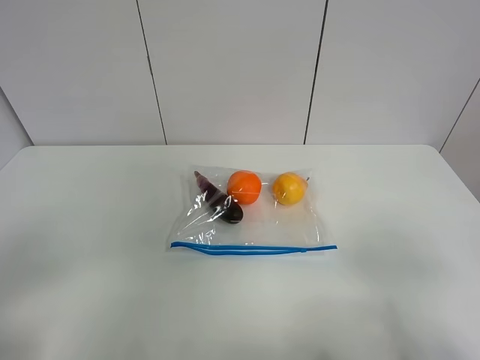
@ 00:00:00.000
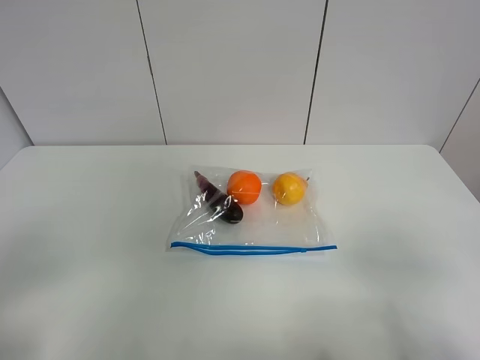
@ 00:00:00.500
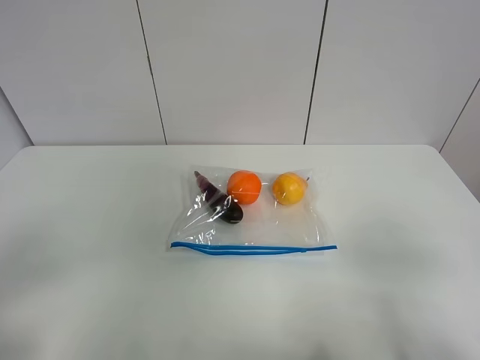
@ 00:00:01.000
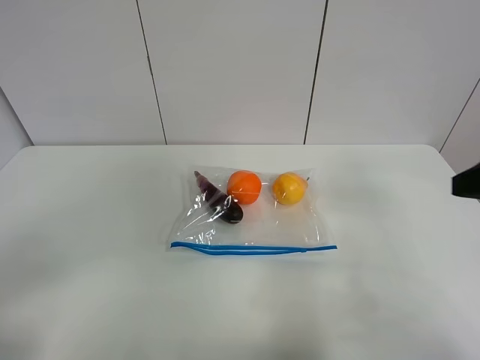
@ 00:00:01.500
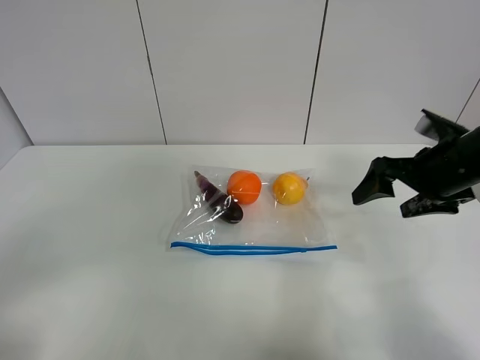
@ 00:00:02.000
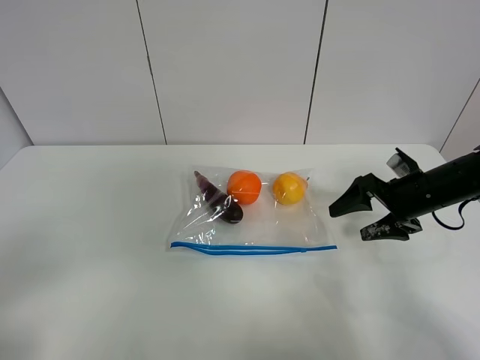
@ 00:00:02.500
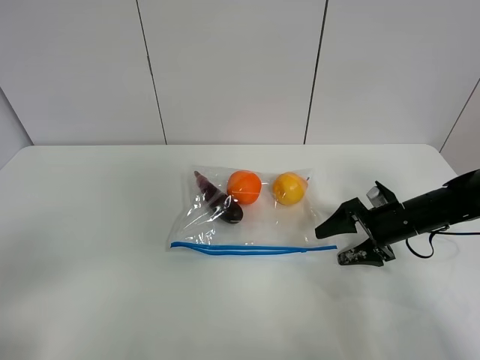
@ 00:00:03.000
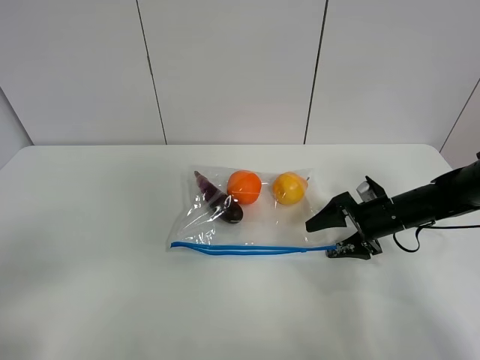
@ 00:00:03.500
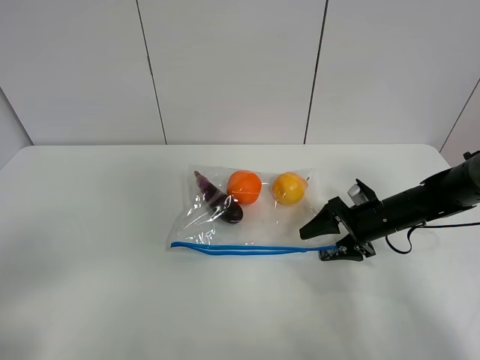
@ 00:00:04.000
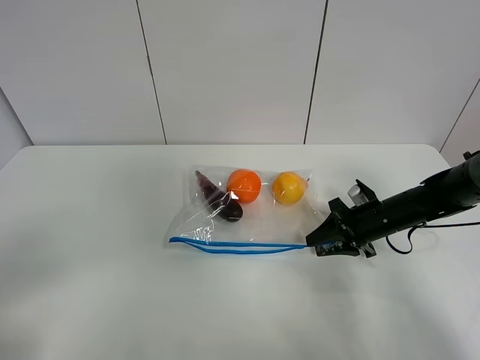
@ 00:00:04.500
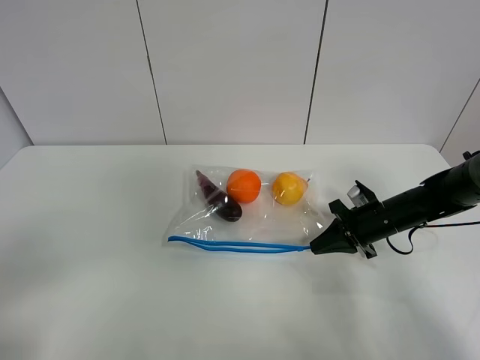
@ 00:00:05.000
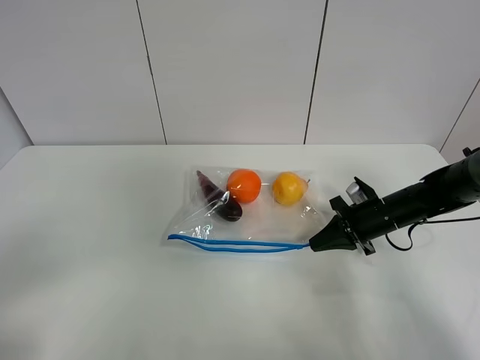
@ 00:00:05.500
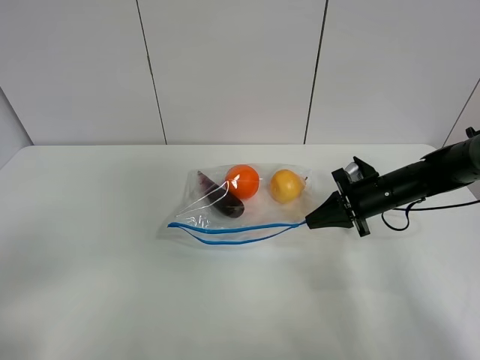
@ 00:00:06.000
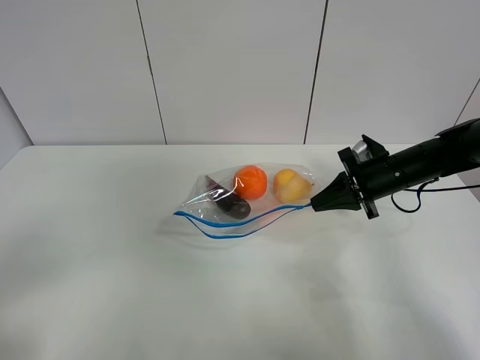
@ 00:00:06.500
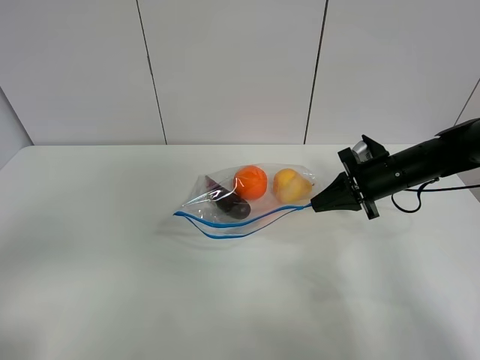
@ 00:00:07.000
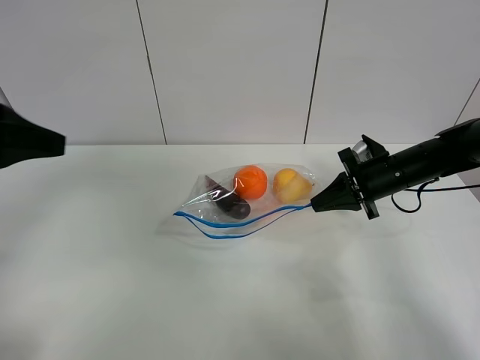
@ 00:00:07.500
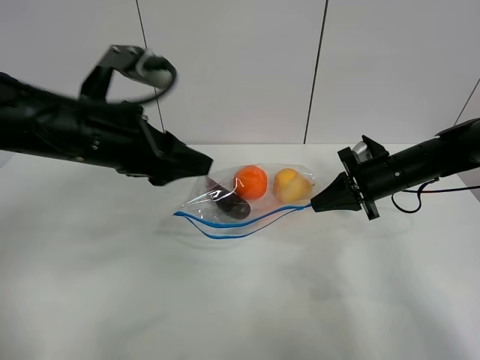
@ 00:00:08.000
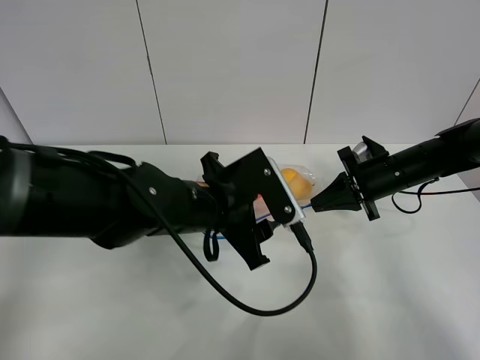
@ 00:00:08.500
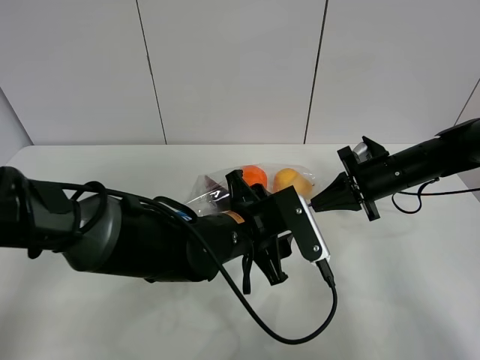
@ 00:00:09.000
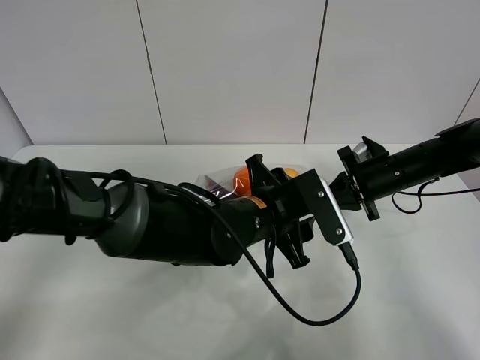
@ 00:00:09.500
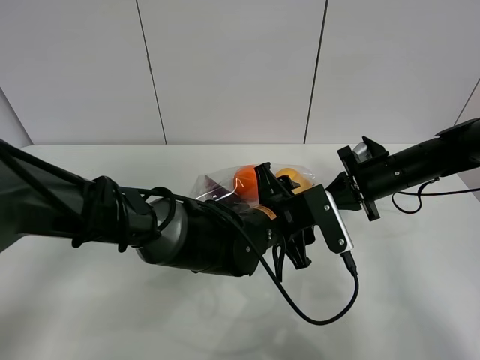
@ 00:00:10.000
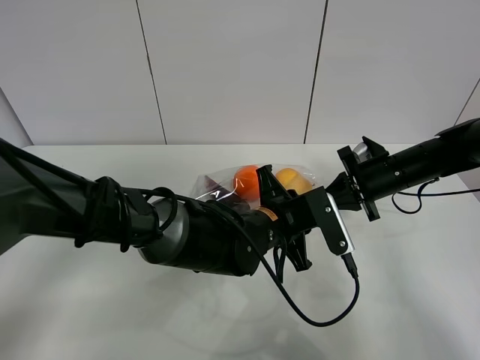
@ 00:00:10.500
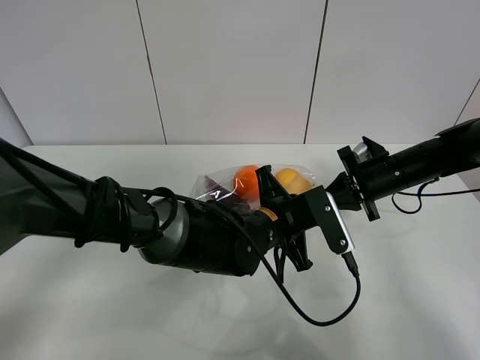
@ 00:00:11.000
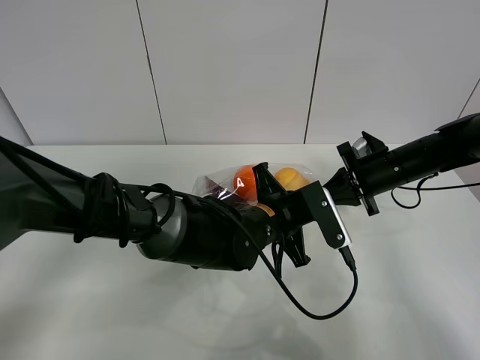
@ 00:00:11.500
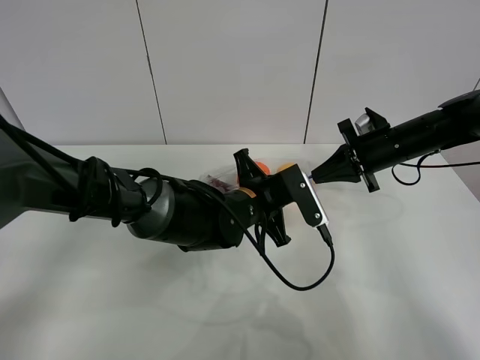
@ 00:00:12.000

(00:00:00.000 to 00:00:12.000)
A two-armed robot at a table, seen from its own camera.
Step, 00:00:00.000 - 00:00:05.000: Grasp the fruit bag with right gripper.
Step, 00:00:05.500 - 00:00:06.500: Lift the fruit bag with your right gripper.
00:00:00.000 - 00:00:02.000: The right gripper shifts roughly 30 cm forward.
00:00:02.000 - 00:00:04.000: The right gripper goes about 15 cm downward.
00:00:04.000 - 00:00:06.000: The right gripper closes up.
00:00:06.000 - 00:00:08.000: The left gripper moves forward and to the right, roughly 30 cm.
00:00:08.000 - 00:00:10.000: The left gripper is displaced to the right and downward by some 25 cm.
00:00:10.000 - 00:00:12.000: The left gripper shifts by about 5 cm, and closes up.

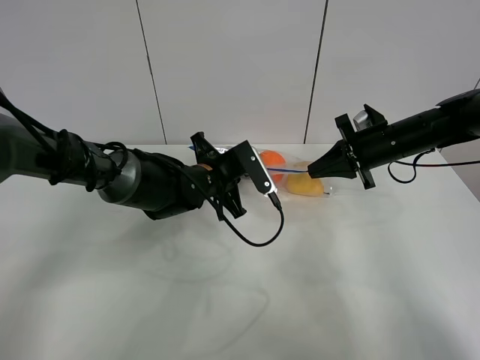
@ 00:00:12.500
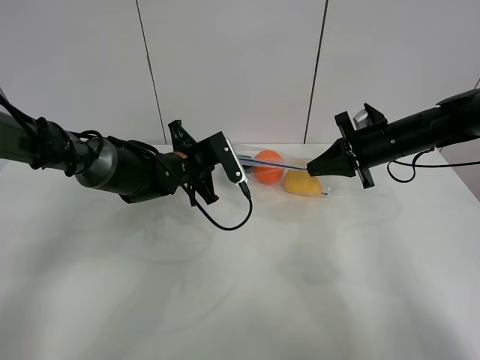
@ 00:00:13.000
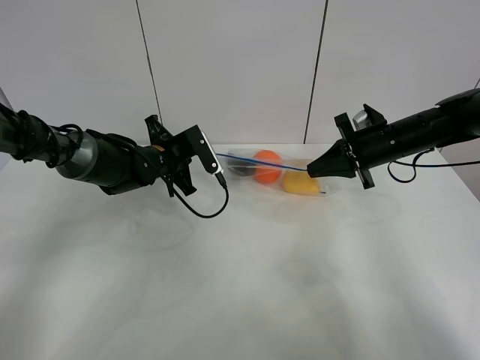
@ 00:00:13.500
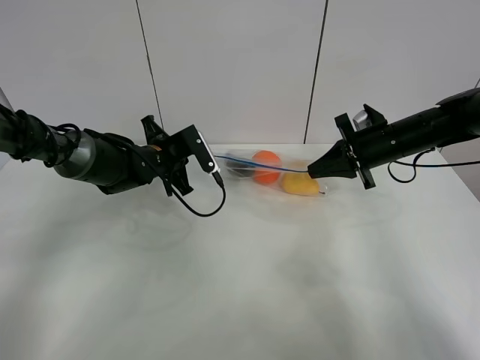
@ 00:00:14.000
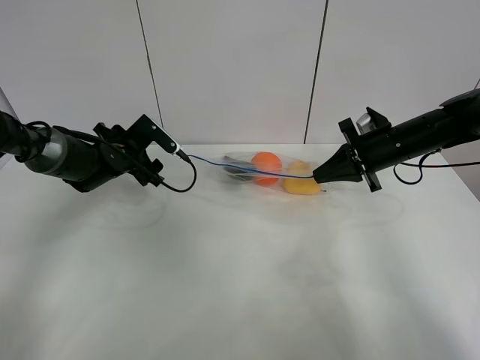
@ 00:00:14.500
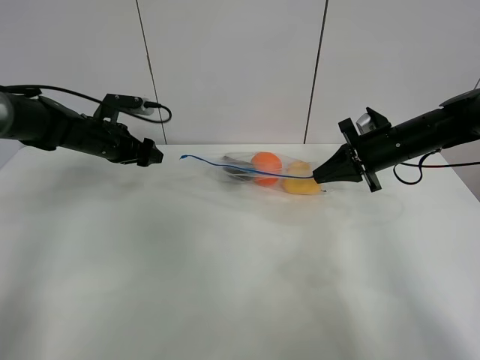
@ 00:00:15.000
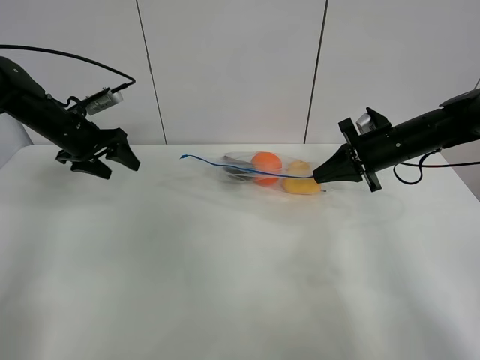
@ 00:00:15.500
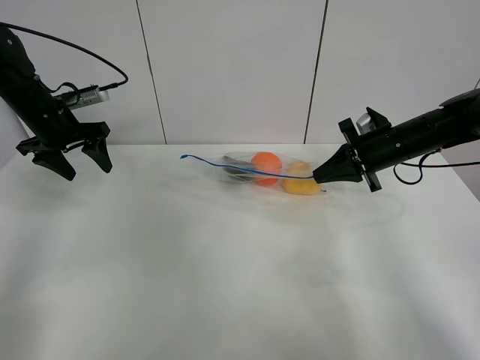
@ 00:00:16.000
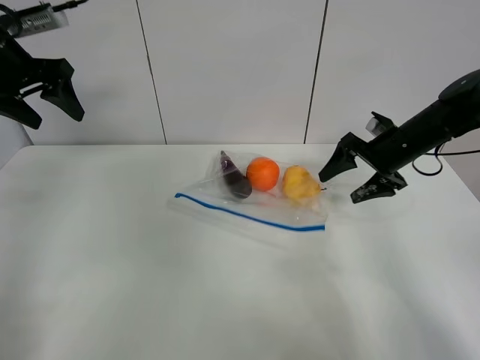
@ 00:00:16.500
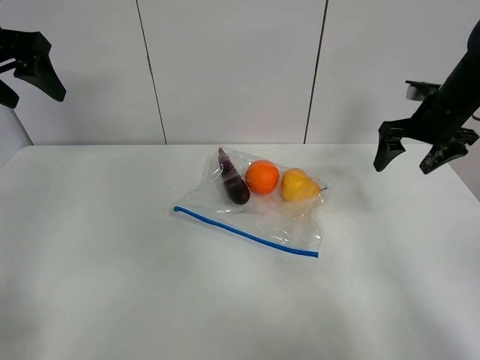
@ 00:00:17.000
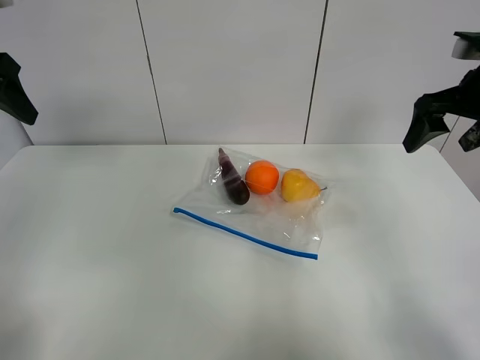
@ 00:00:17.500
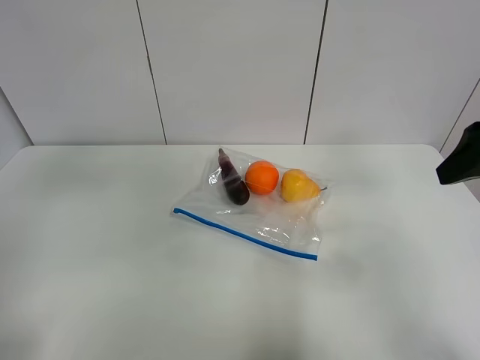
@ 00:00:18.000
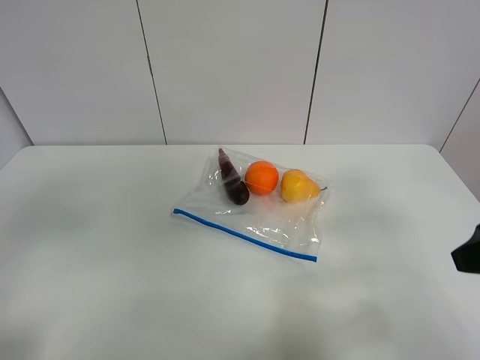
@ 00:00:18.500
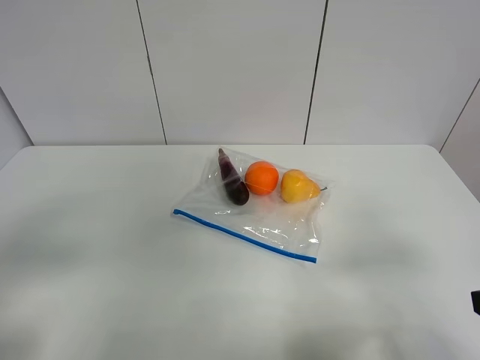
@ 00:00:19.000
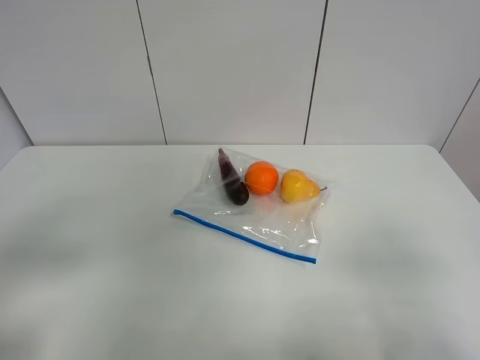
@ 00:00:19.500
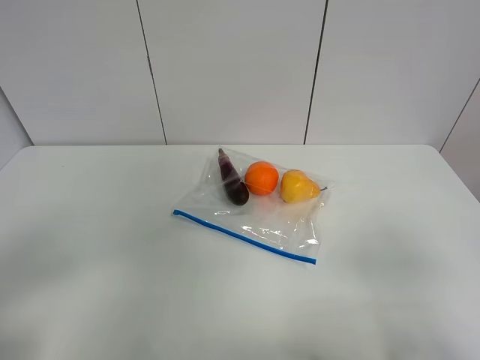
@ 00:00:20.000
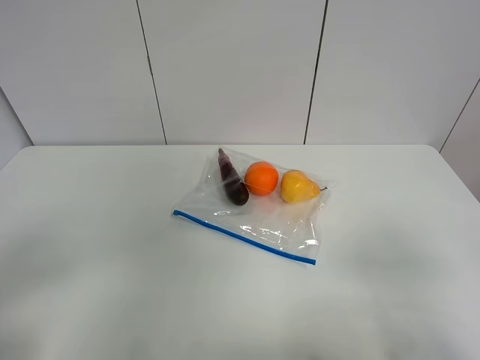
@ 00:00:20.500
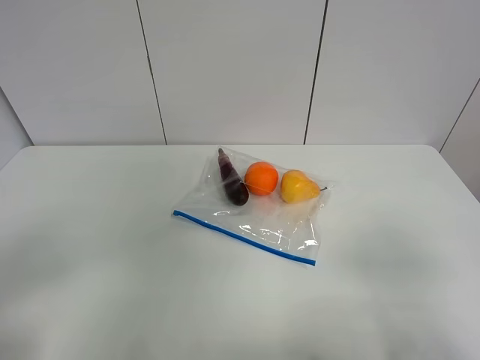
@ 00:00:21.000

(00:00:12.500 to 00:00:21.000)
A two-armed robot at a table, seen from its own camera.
00:00:12.500 - 00:00:14.500: The left gripper shifts approximately 15 cm to the left, and opens.
00:00:14.500 - 00:00:16.500: The right gripper opens its fingers, while the left gripper shifts roughly 20 cm upward.
00:00:16.500 - 00:00:19.000: The grippers both shift backward by roughly 35 cm.
00:00:19.000 - 00:00:21.000: Both grippers move backward, some 5 cm.
